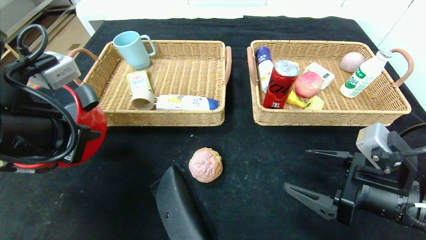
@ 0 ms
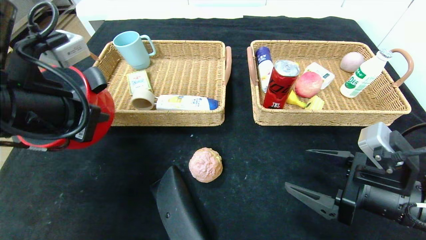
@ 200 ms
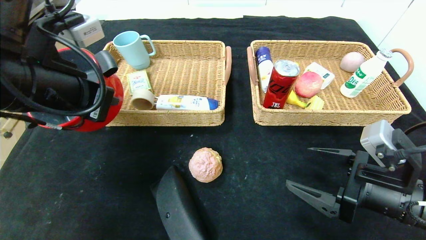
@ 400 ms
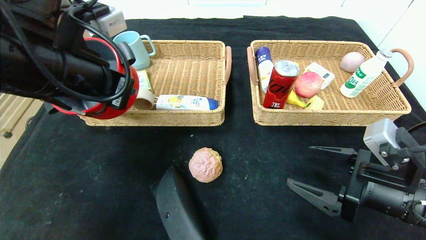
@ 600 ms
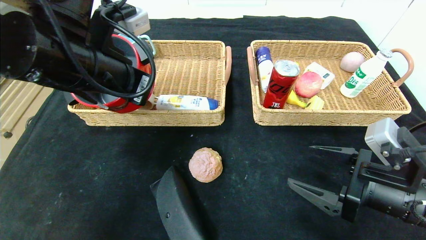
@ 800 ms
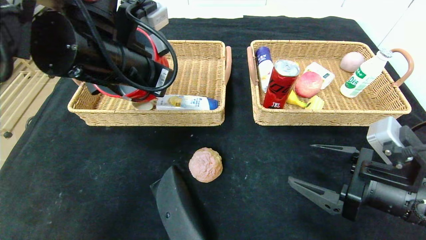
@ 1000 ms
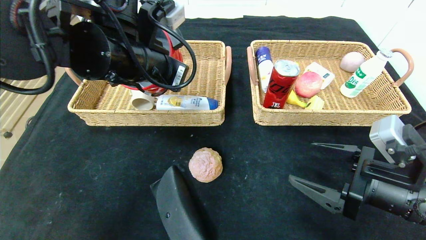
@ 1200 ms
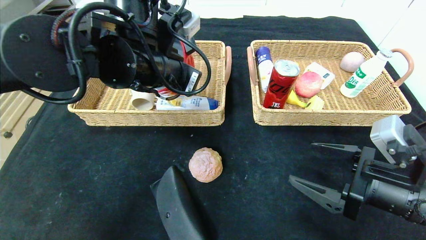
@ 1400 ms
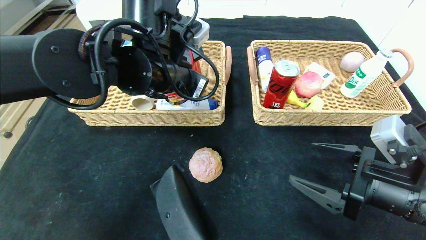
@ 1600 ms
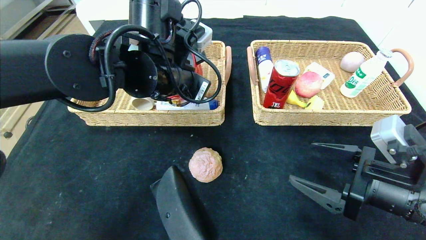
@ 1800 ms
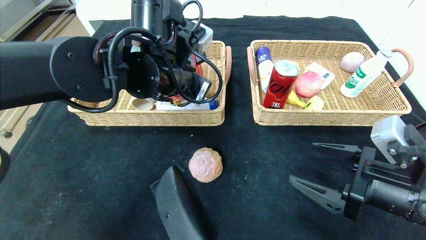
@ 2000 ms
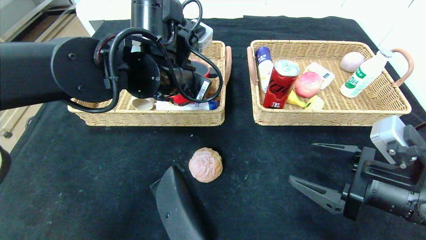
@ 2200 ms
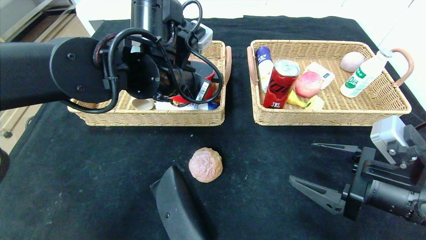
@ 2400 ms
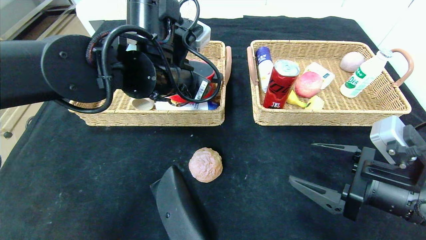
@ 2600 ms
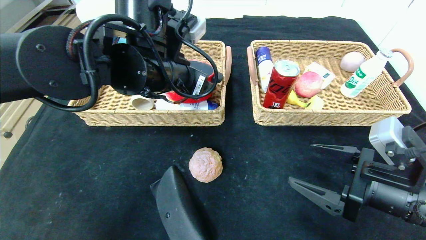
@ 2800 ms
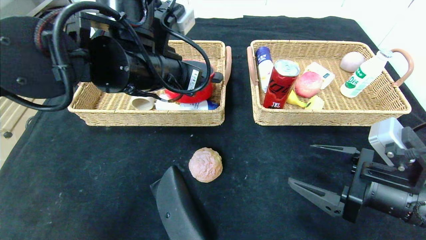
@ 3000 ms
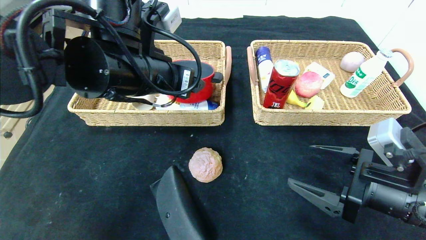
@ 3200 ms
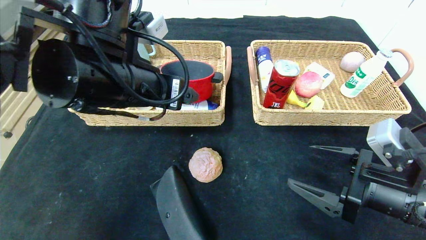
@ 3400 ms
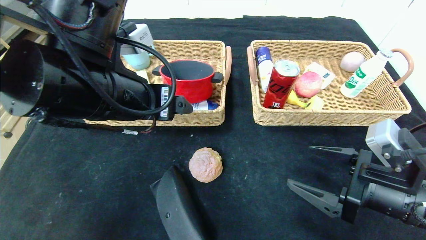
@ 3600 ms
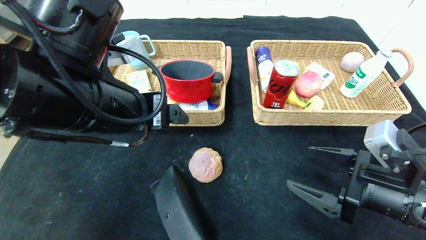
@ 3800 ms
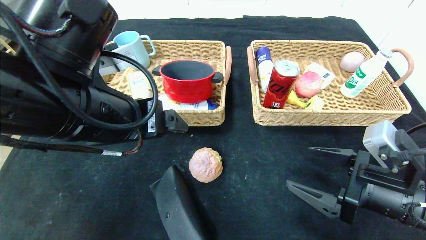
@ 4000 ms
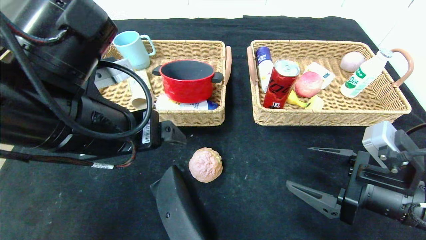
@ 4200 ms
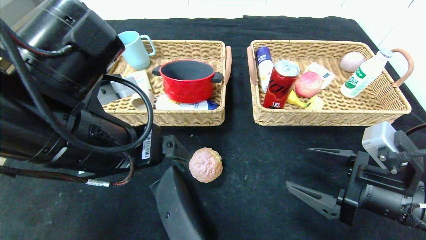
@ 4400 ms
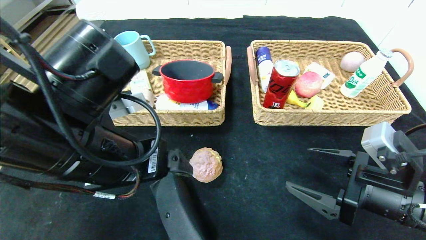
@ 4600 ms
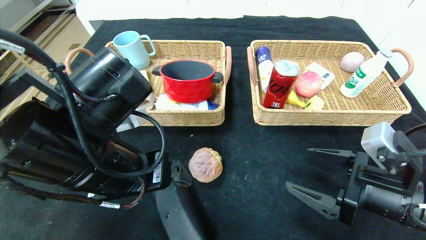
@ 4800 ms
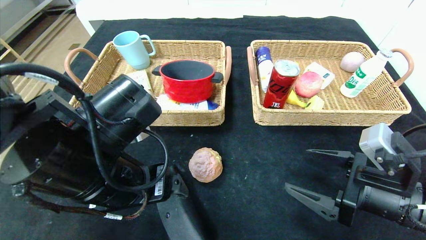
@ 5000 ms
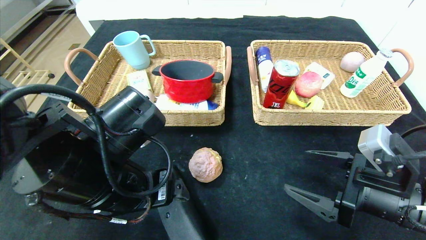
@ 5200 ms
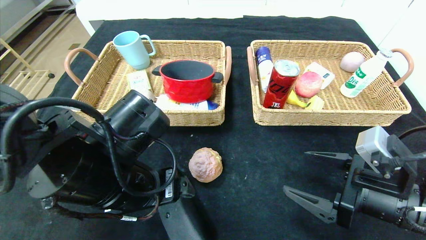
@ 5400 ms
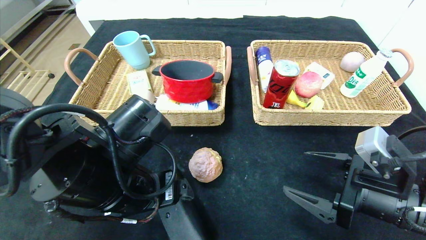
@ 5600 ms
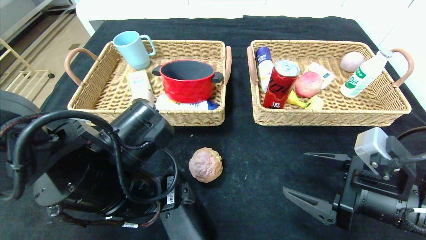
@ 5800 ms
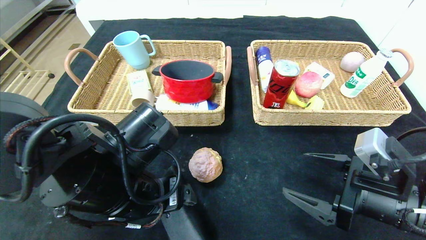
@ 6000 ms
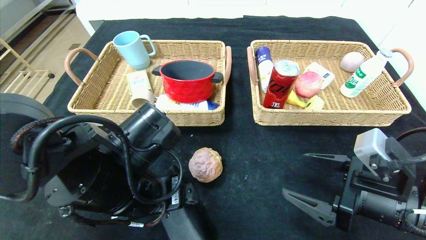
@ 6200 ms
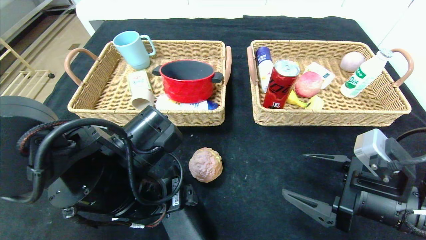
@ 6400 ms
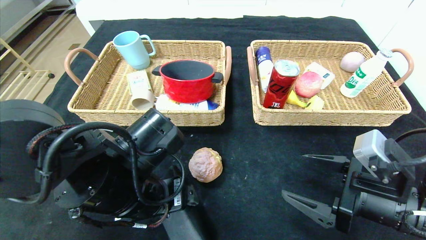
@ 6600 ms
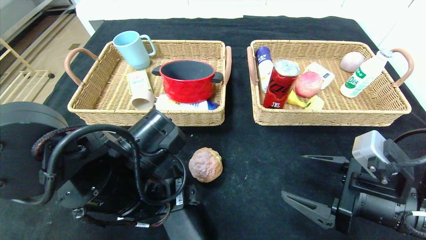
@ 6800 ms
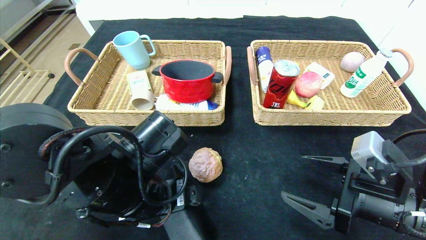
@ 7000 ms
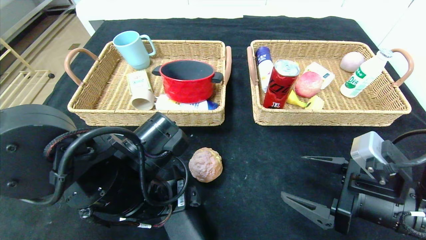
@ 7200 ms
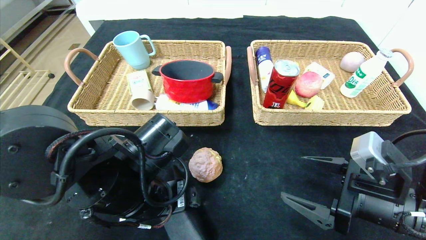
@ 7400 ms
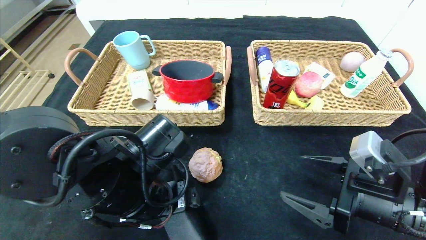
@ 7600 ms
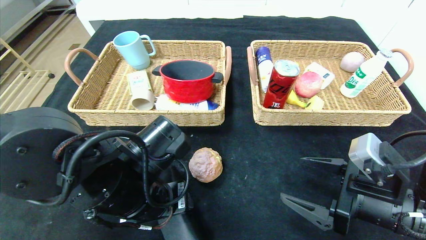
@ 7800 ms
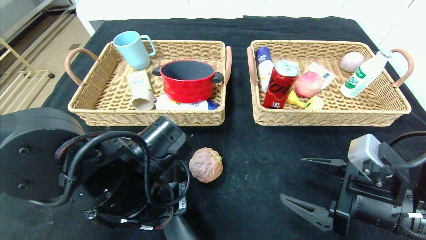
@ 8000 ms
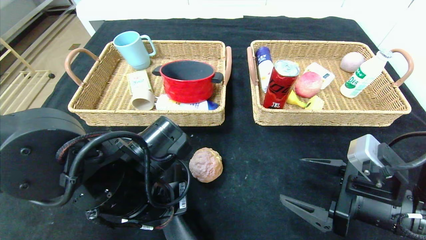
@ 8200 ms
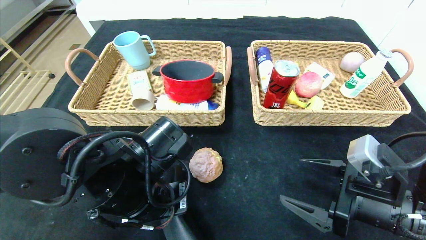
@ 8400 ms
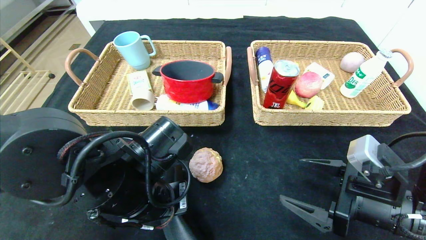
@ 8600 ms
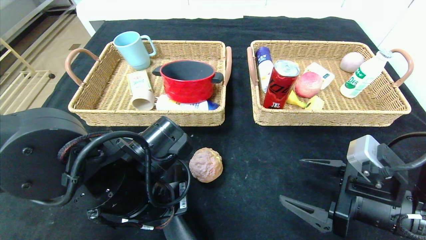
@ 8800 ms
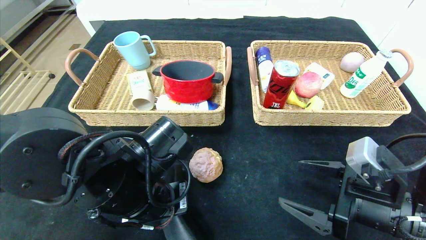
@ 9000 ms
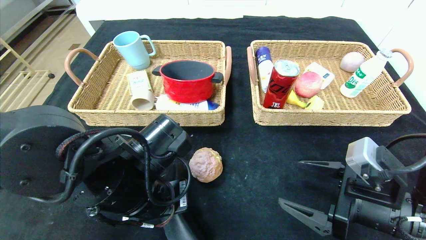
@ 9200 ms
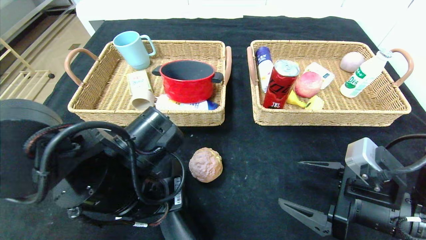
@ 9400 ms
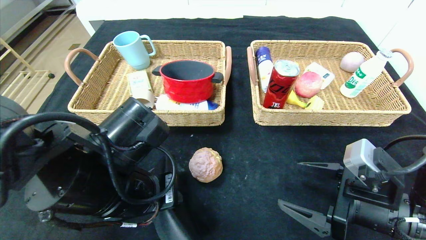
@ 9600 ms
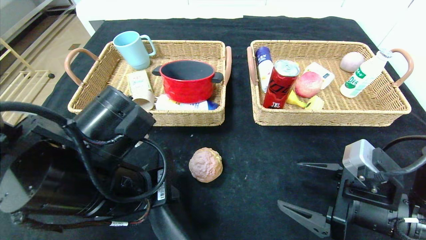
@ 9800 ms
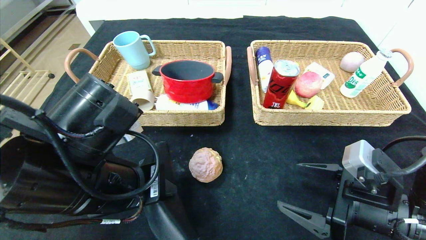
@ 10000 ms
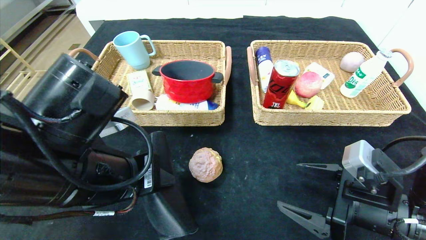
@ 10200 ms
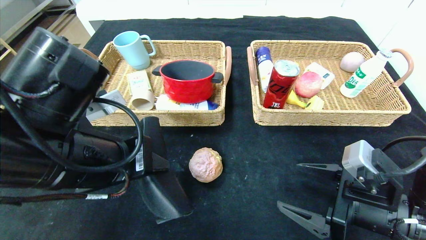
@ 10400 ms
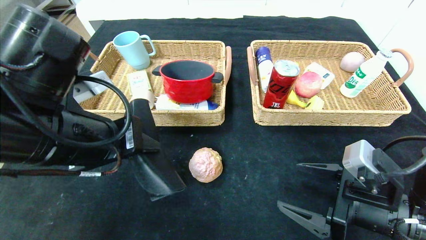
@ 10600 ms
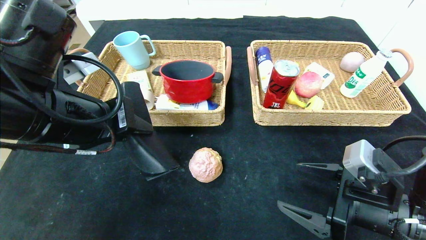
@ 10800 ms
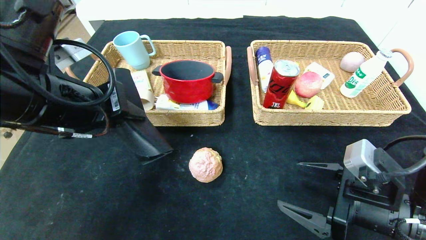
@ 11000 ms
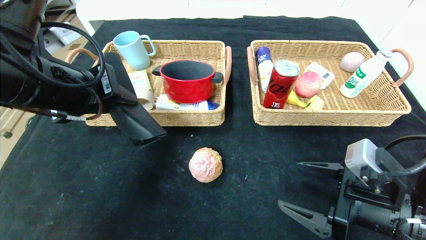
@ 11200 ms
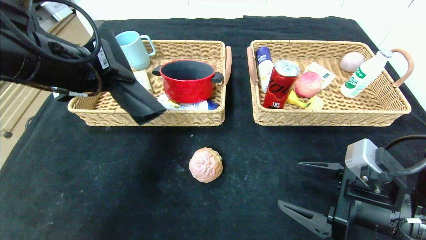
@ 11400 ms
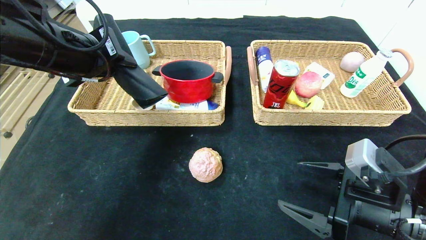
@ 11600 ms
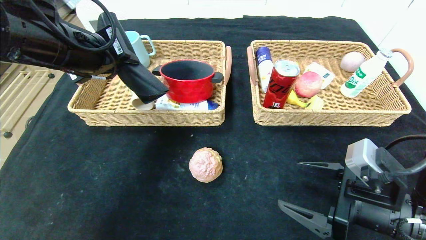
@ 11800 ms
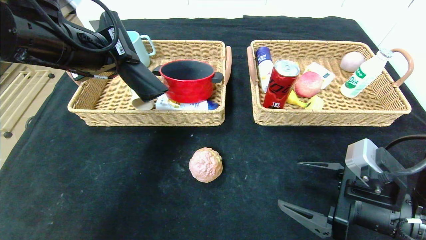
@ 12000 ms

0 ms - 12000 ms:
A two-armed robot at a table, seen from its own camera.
Step, 0 ms - 3000 ms: Grasp the red pot and put it in the left basket.
0 ms - 1600 ms: The left gripper shifts some 20 cm to the right and forward.
1600 ms - 3000 ms: The left gripper opens.
3000 ms - 4400 ms: The left gripper shifts approximately 10 cm backward.
4400 ms - 6000 ms: The left gripper shifts approximately 10 cm downward.
6000 ms - 7600 ms: The grippers make only small movements.
7600 ms - 9000 ms: The left gripper closes.
9000 ms - 10400 ms: The left gripper is displaced upward by roughly 10 cm.
10400 ms - 12000 ms: The left gripper goes about 15 cm forward, upward and to the left.

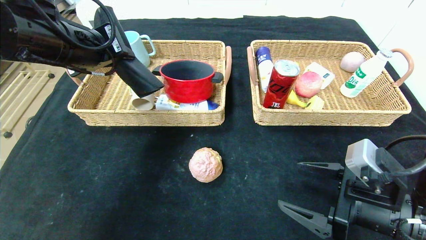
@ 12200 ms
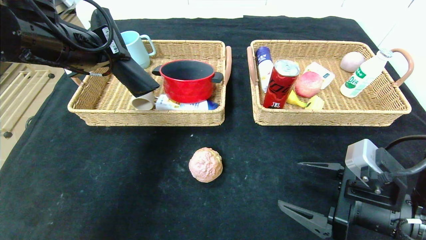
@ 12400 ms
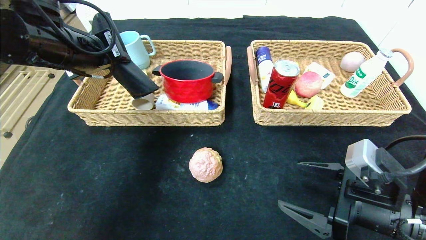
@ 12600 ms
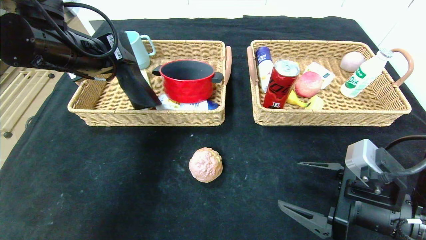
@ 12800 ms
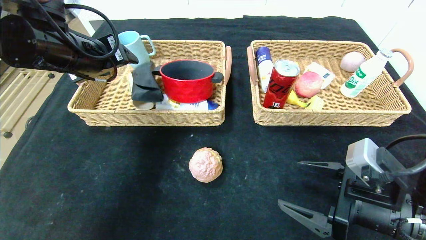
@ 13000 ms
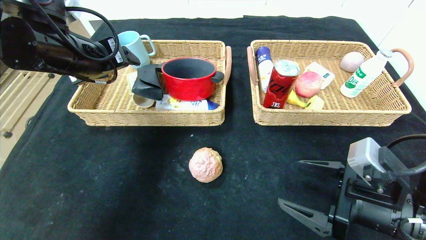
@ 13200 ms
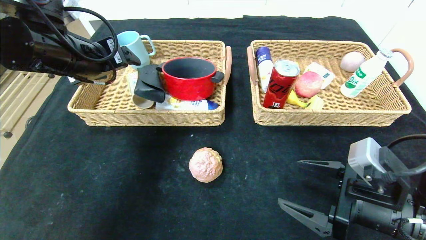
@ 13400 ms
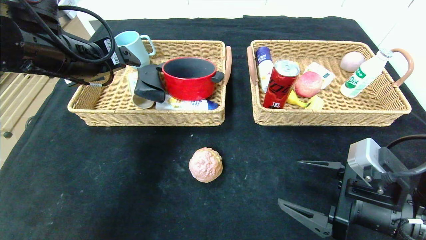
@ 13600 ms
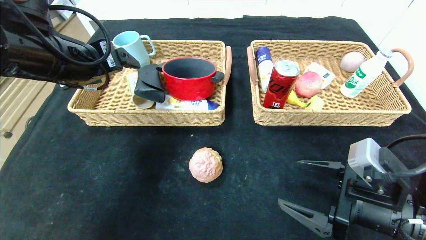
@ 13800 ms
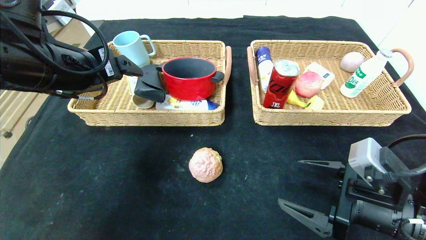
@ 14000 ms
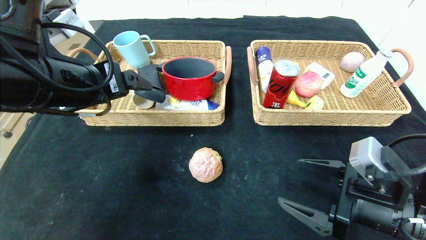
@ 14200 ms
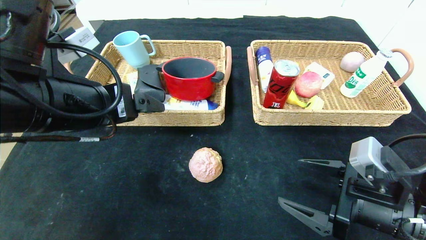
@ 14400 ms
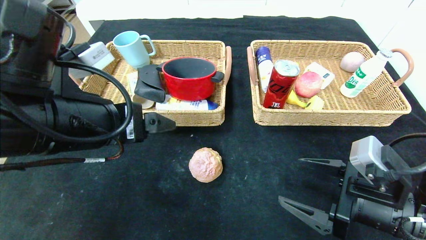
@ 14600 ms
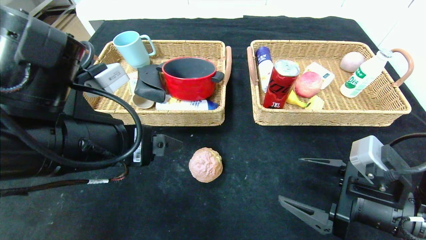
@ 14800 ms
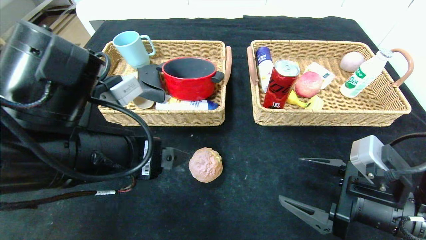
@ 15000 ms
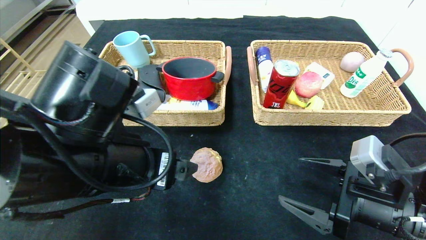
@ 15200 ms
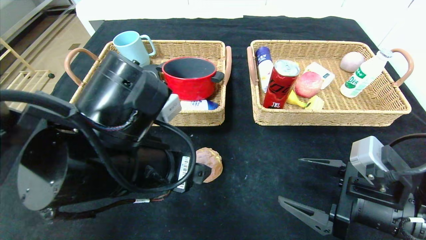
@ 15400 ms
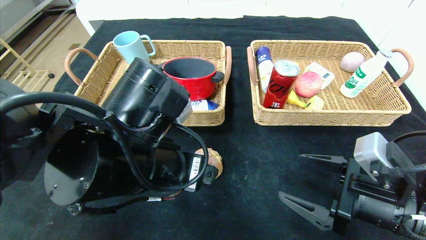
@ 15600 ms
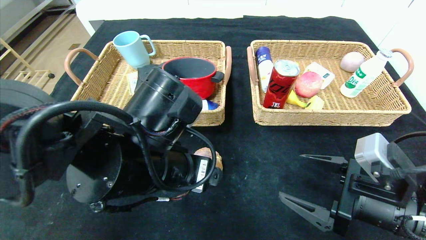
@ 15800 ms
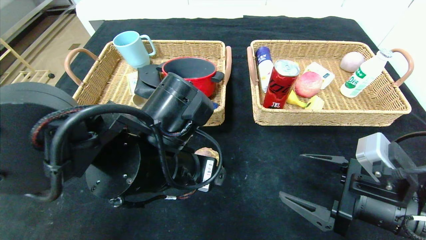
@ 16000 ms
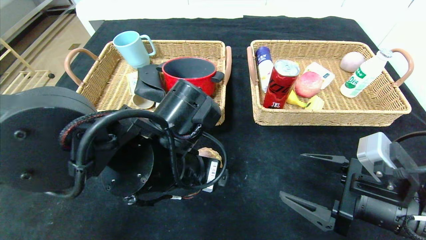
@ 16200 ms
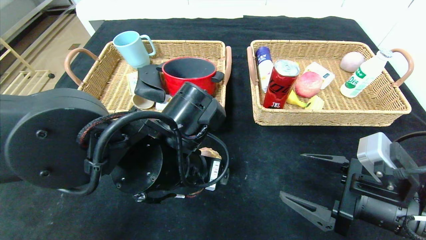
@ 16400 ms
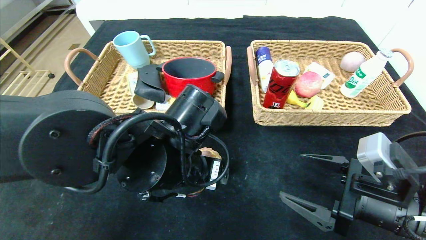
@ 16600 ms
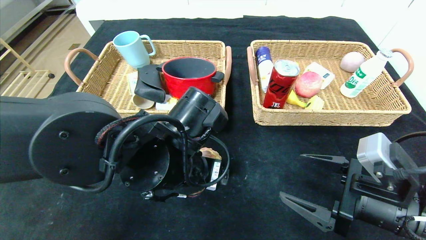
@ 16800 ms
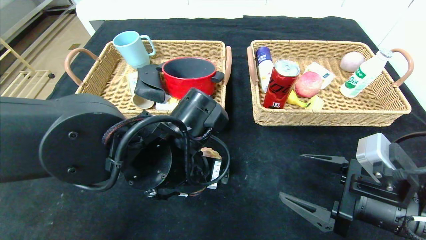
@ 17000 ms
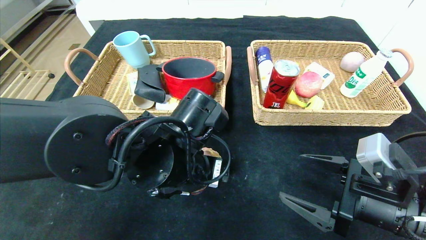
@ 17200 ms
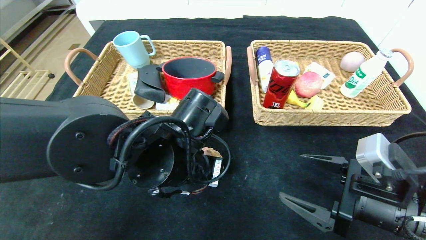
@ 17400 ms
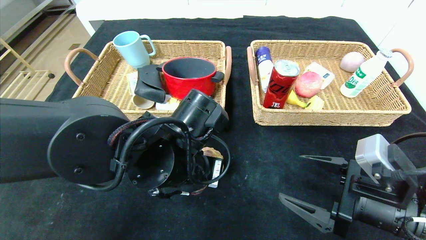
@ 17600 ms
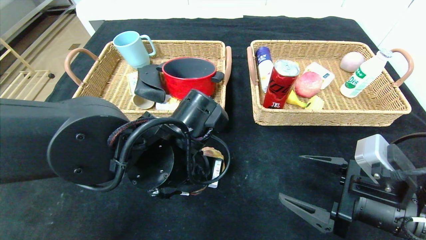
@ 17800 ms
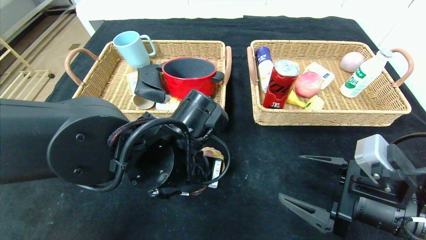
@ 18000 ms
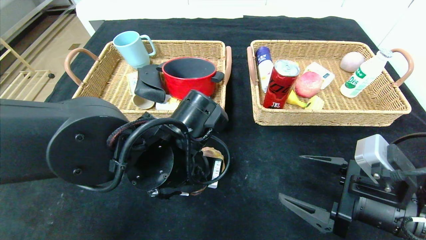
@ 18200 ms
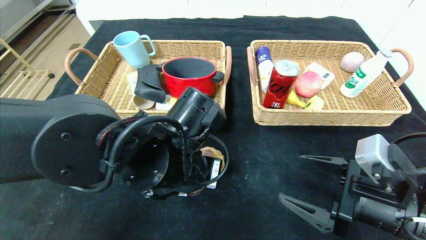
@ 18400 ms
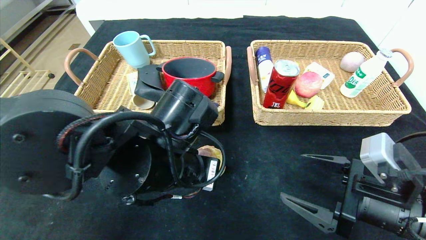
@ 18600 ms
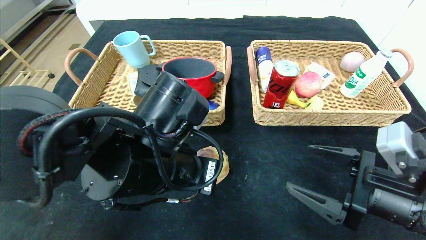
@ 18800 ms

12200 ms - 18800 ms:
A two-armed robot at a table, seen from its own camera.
12200 ms - 13800 ms: The left gripper opens its fingers.
13800 ms - 15400 ms: The left gripper travels to the right, downward and backward by about 15 cm.
15400 ms - 17200 ms: The left gripper ends up some 10 cm from where it was.
17200 ms - 18800 ms: The left gripper closes its fingers.
